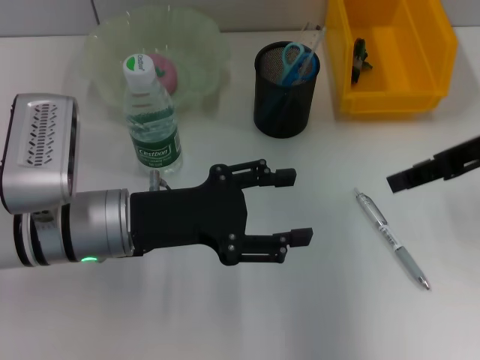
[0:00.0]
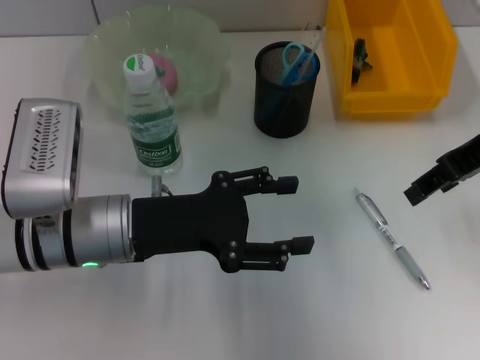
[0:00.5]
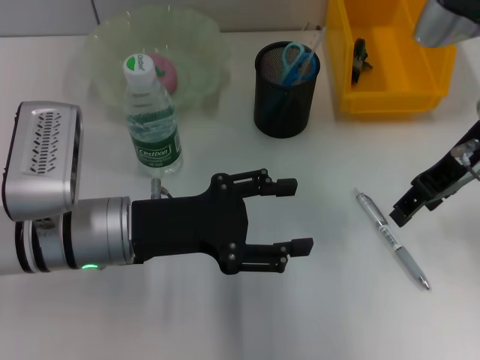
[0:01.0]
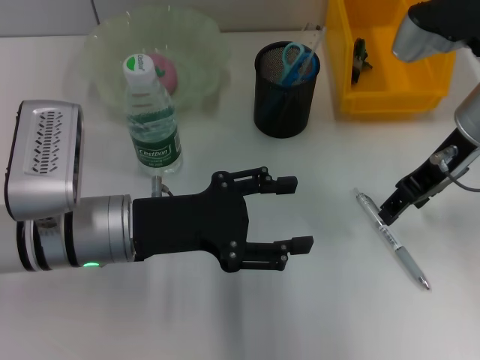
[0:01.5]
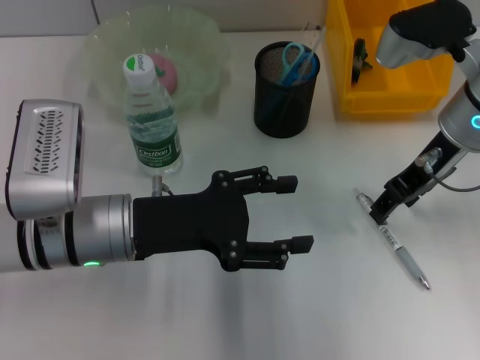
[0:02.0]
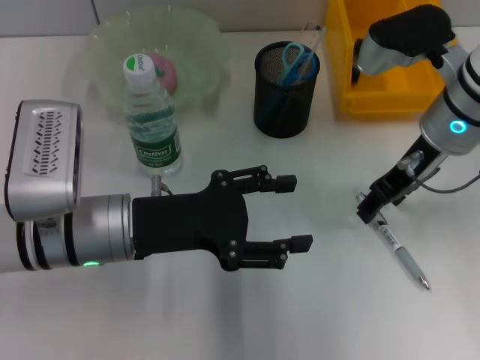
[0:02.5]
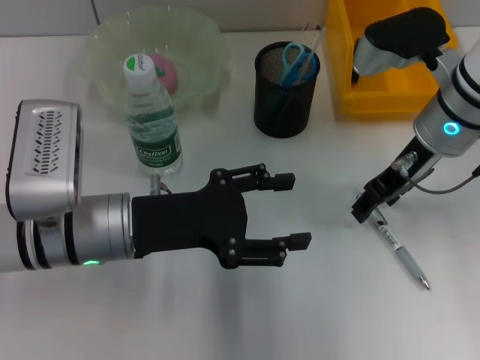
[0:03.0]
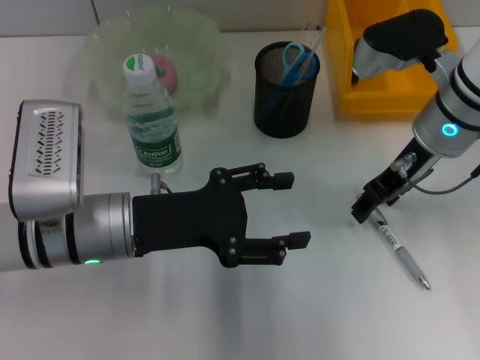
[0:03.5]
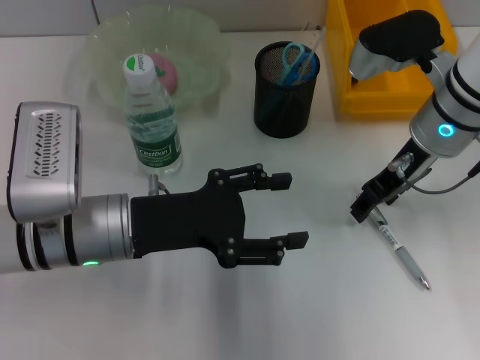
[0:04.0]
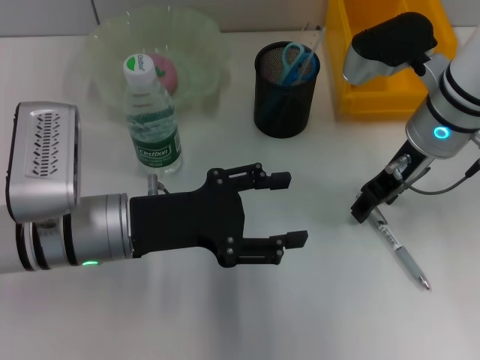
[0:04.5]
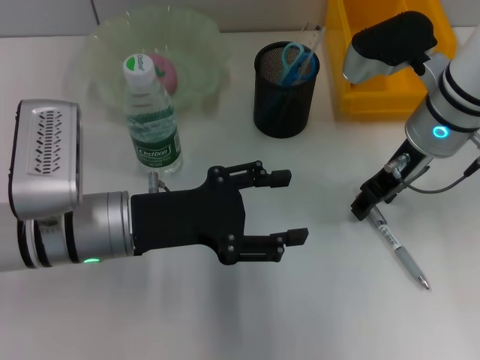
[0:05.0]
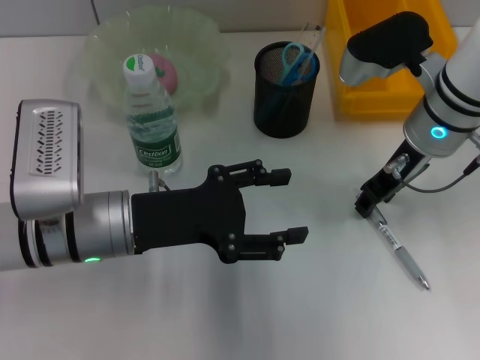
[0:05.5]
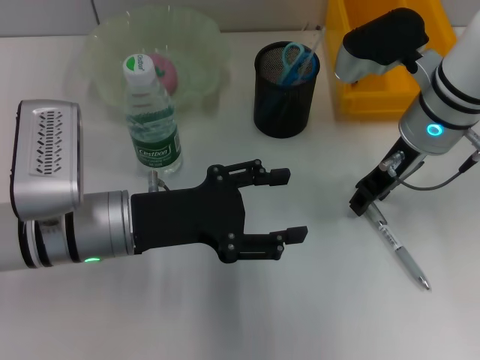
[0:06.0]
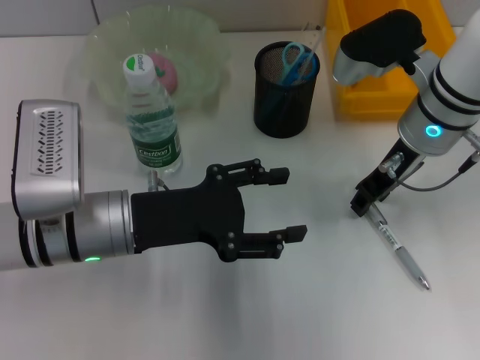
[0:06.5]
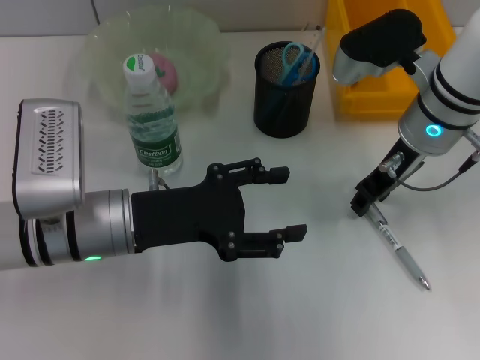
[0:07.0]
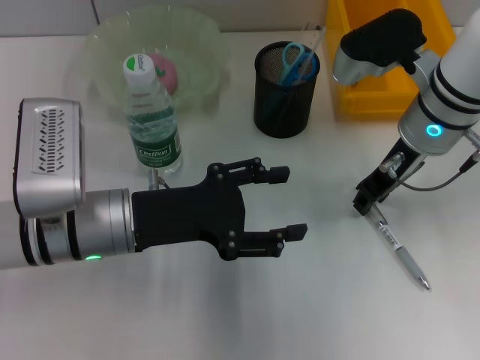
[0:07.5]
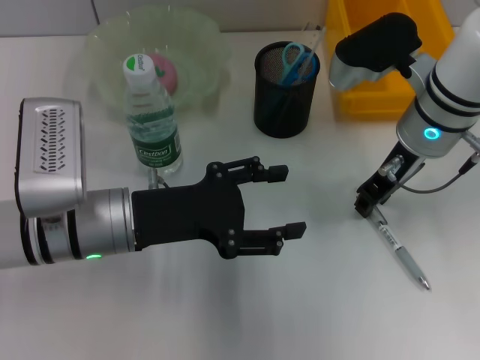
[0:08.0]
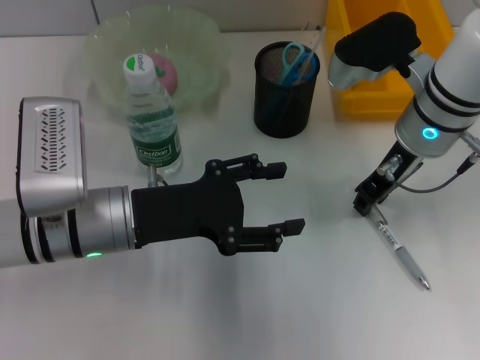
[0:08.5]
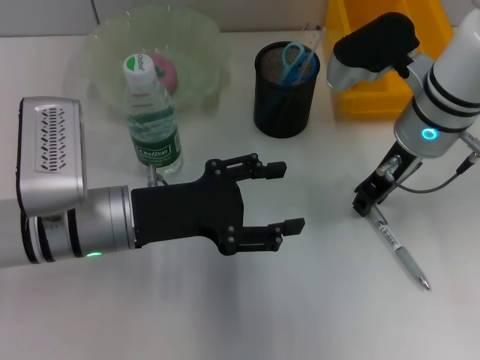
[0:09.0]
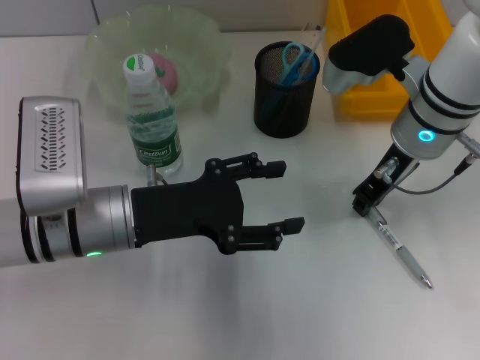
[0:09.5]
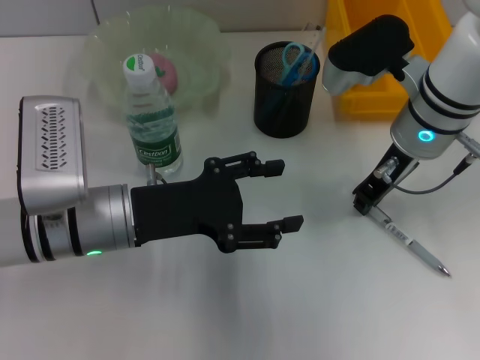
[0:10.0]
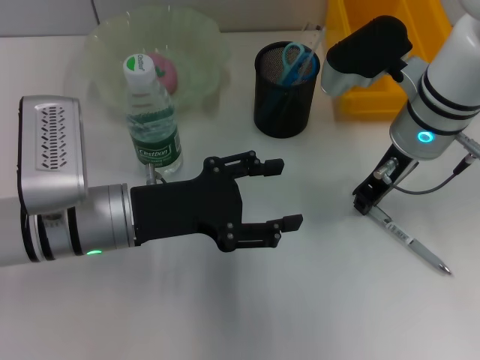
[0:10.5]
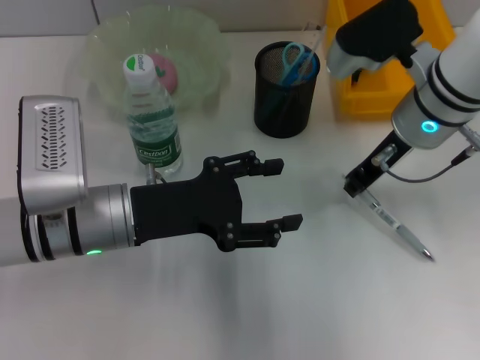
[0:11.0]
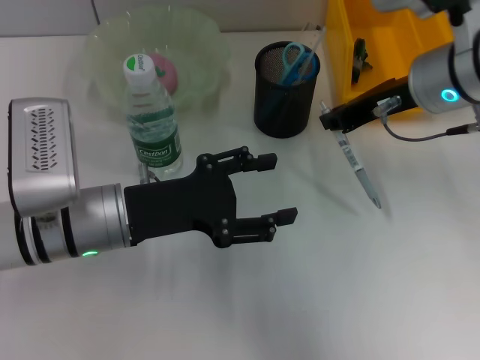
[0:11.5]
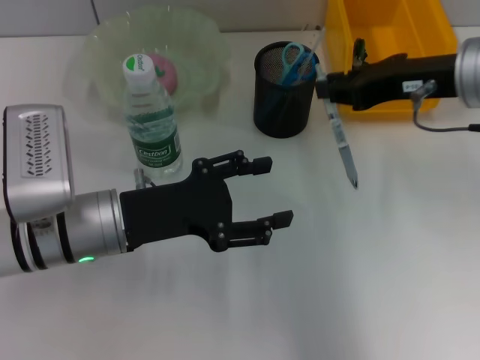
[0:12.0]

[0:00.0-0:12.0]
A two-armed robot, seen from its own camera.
Step, 0:00.0 to 0:10.0: Grab the gray spring-action pen with the right hand.
0:00.0 to 0:02.0: The right gripper goes about 5 cm to the left.
0:02.0 to 0:04.0: The grippers make only small movements.
0:04.0 to 0:06.0: The two grippers keep their place.
0:06.0 to 0:10.0: Both grippers stay about where they are.
0:10.0 to 0:12.0: The right gripper heads upward and to the right, covering roughly 10 cm.

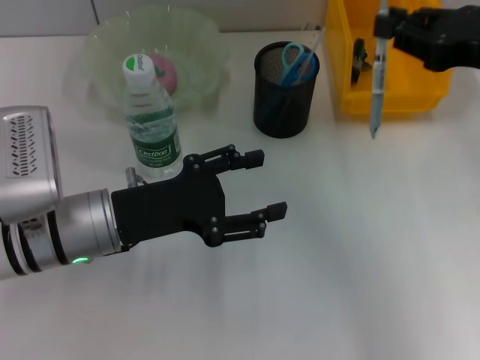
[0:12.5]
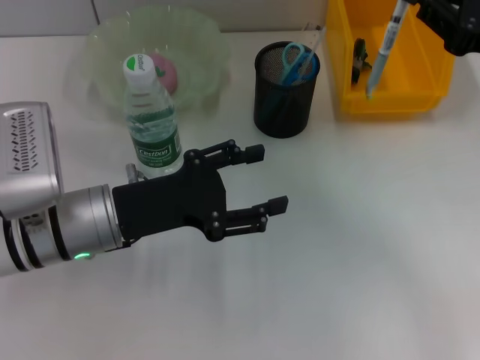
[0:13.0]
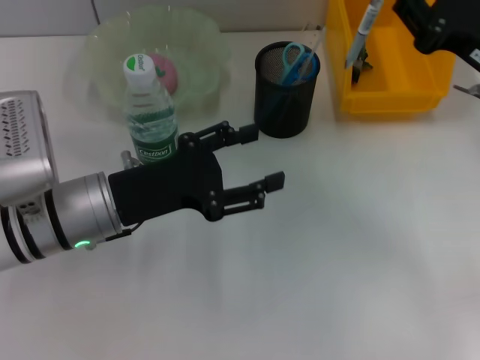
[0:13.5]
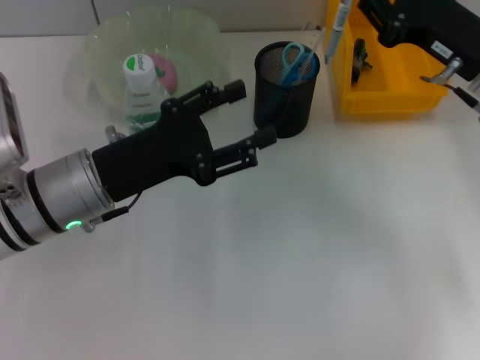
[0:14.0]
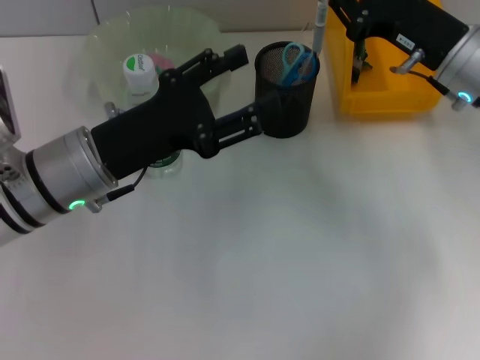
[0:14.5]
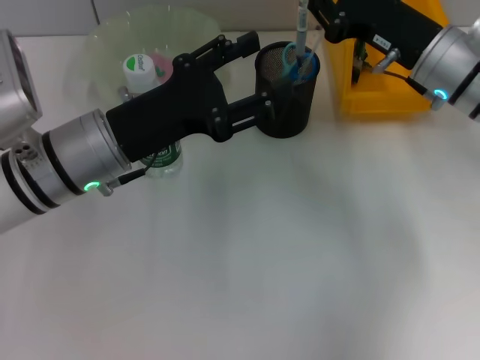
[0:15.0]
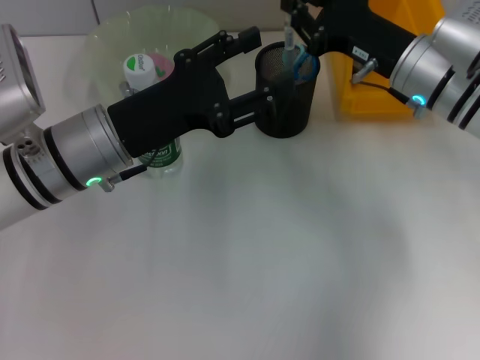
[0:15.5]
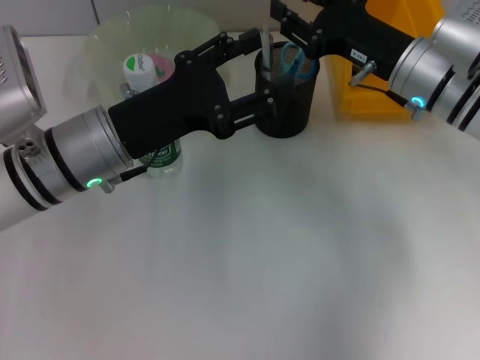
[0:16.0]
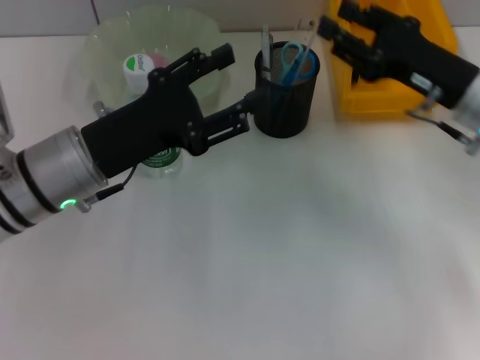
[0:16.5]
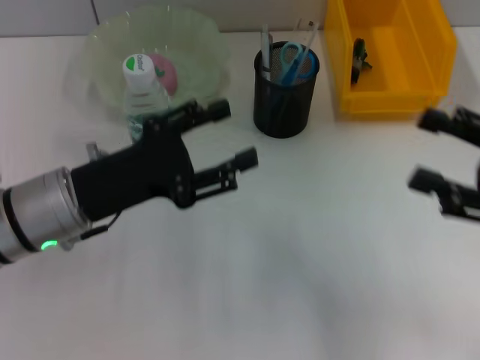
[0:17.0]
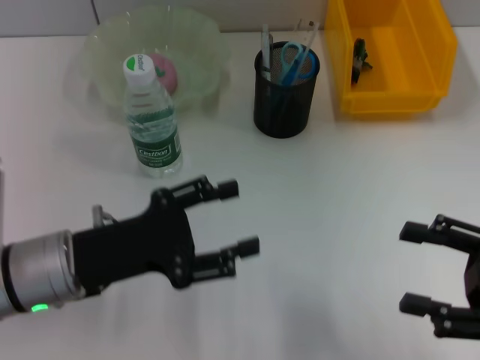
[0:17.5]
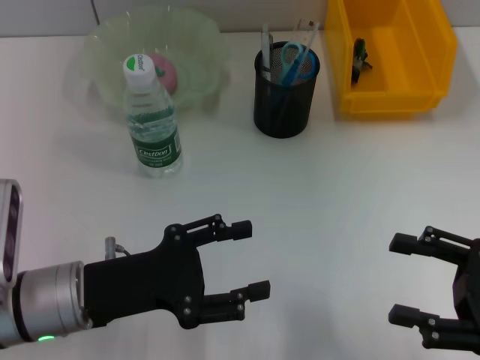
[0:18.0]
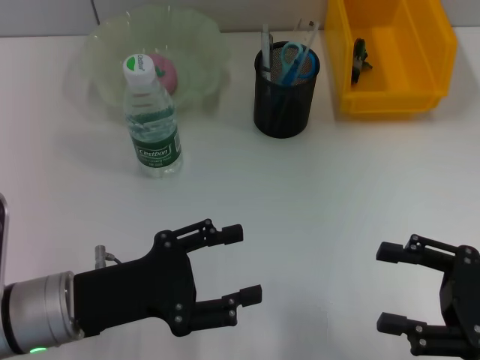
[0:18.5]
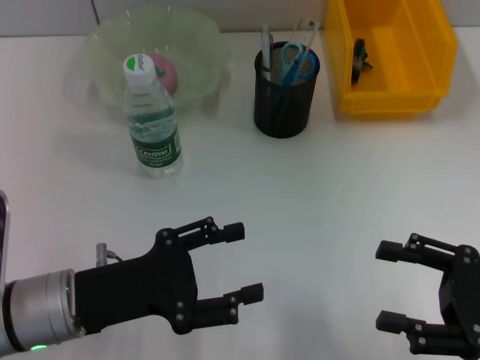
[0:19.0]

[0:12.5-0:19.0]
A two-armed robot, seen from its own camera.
Step, 0:12.5 to 0:16.0: Place the gray spring-action pen into the pen holder with the right hand.
0:12.5 to 0:14.5: The right gripper is displaced downward, forward and to the left by approximately 10 cm.
0:14.5 to 0:17.0: The right gripper is displaced backward and to the right by approximately 15 cm, and opens its fingers.
0:17.0 to 0:19.0: The right gripper goes some 5 cm downward. Meanwhile the left gripper travels backward by approximately 5 cm.
